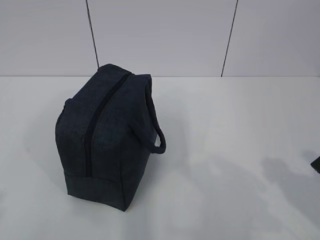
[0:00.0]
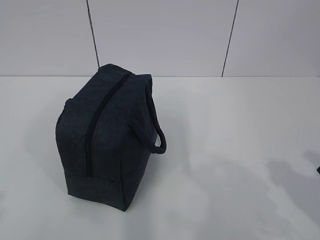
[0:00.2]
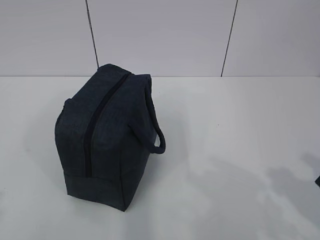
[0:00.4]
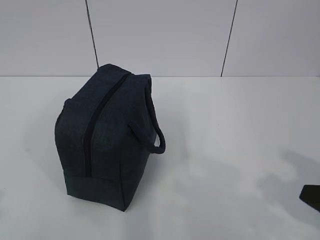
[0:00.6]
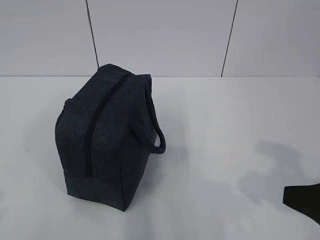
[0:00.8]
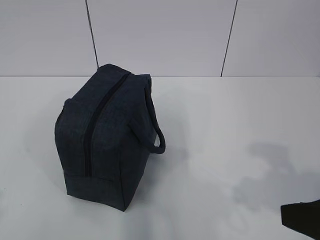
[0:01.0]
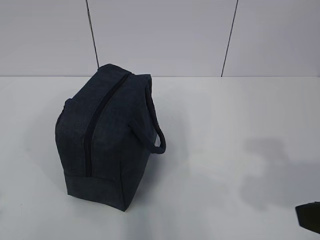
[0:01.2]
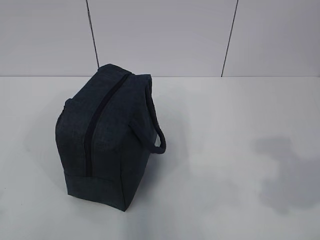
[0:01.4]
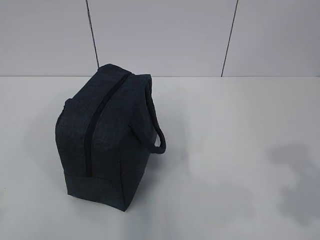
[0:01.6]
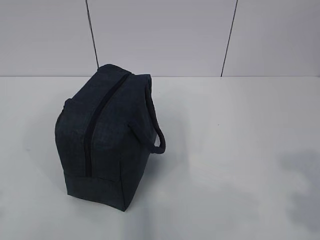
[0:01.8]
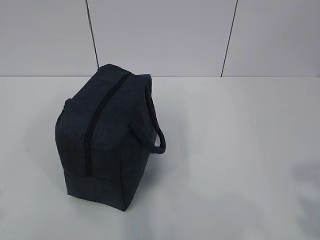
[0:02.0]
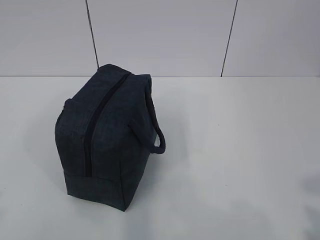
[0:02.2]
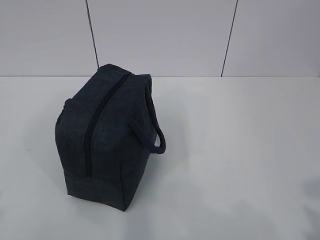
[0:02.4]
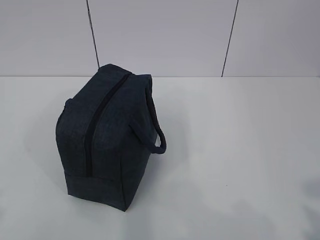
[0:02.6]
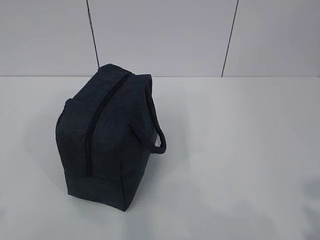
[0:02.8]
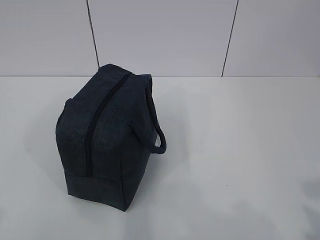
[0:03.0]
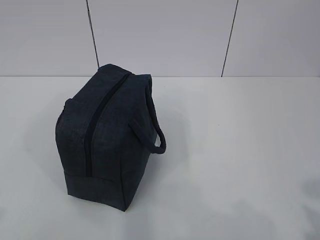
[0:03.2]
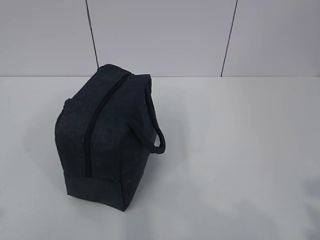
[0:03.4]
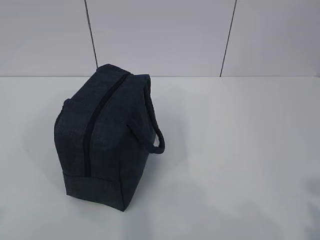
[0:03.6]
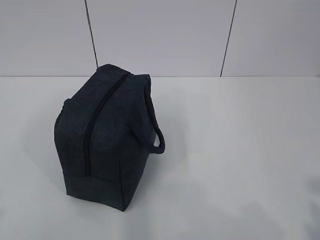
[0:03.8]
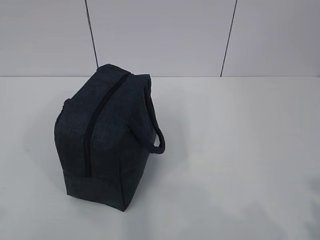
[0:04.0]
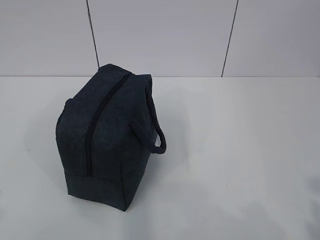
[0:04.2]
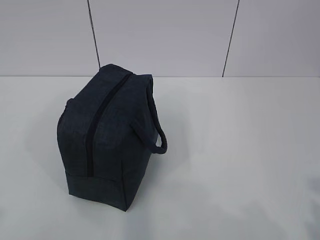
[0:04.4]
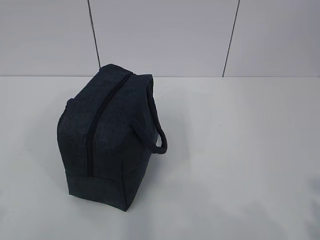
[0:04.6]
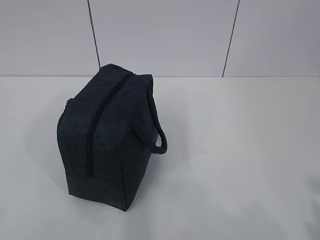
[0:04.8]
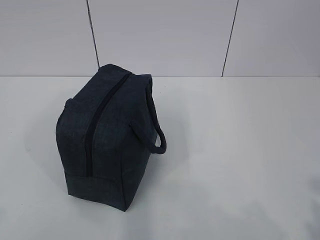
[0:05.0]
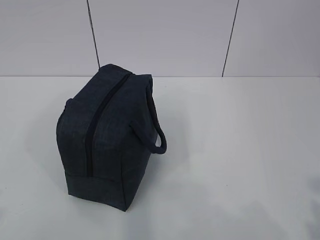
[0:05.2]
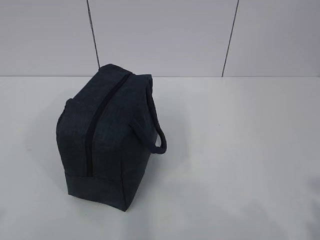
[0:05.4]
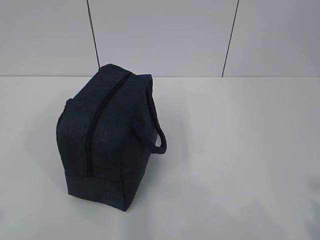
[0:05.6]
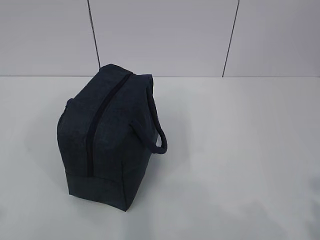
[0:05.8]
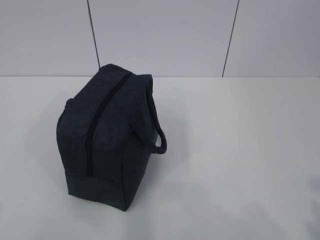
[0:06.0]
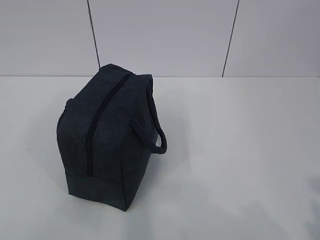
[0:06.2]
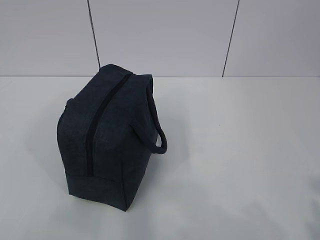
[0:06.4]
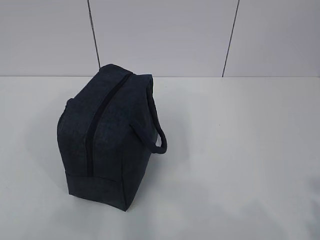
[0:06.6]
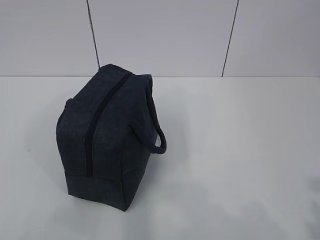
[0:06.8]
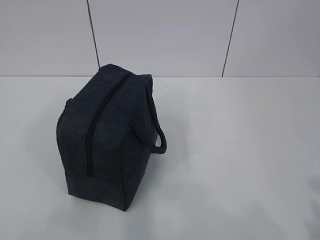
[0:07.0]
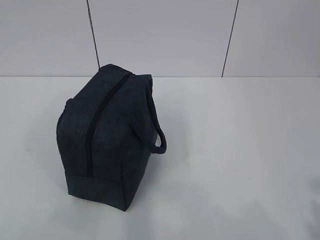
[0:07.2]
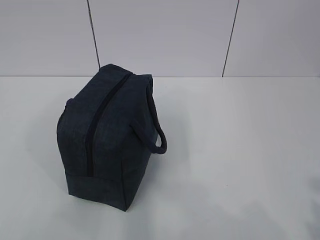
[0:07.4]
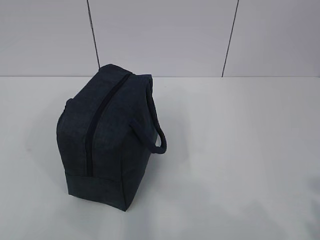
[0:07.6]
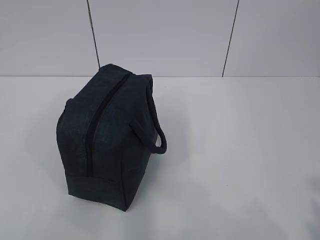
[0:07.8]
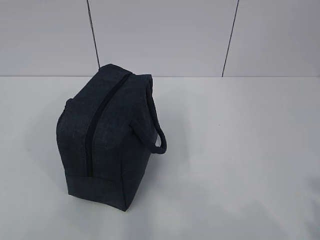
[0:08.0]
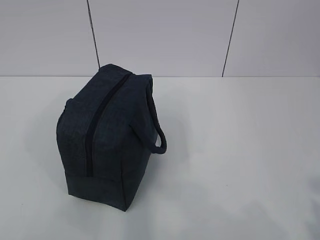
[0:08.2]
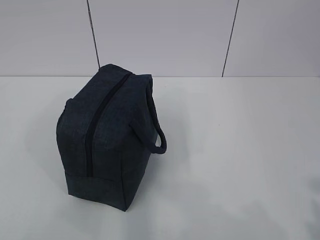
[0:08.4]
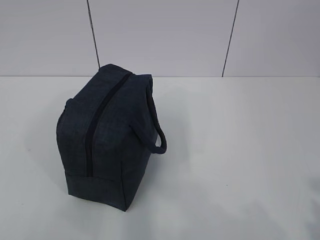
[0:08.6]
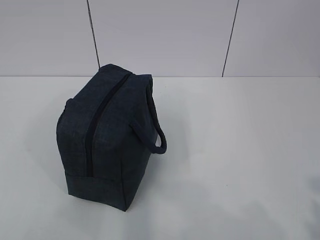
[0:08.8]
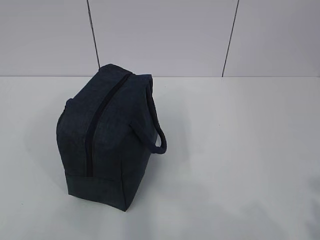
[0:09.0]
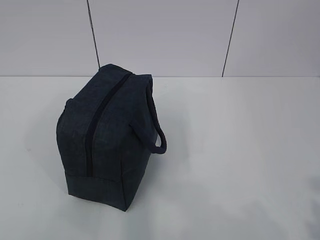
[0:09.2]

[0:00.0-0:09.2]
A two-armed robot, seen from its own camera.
0:00.0 to 0:01.6: The right gripper heads upward, covering approximately 10 cm.
0:03.0 to 0:04.6: The grippers stay close to where they were, moving slightly.
0:07.6 to 0:09.2: The two grippers keep their place.
